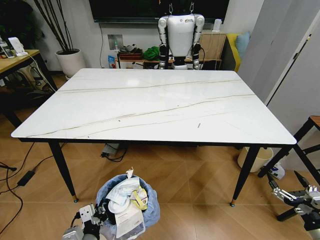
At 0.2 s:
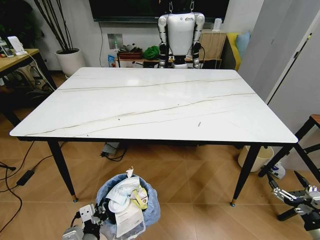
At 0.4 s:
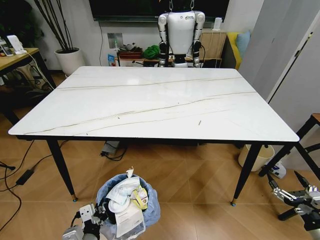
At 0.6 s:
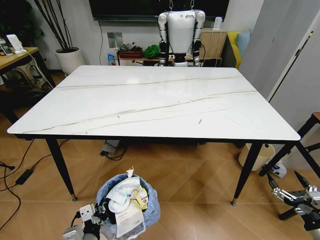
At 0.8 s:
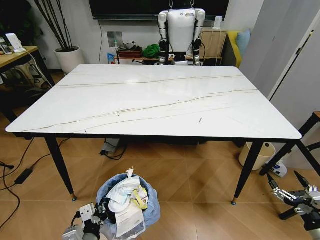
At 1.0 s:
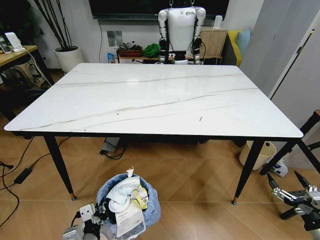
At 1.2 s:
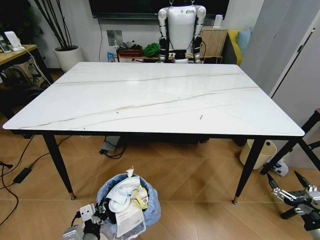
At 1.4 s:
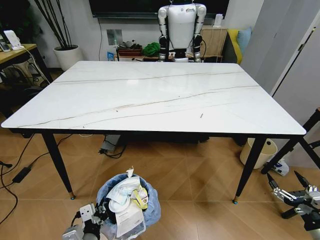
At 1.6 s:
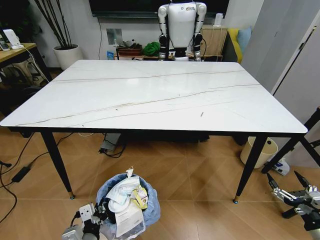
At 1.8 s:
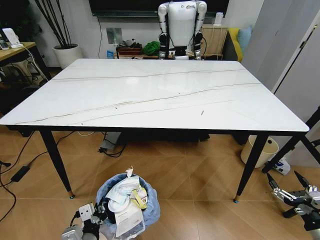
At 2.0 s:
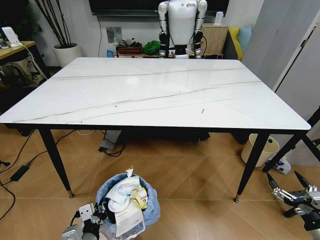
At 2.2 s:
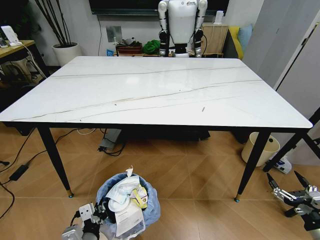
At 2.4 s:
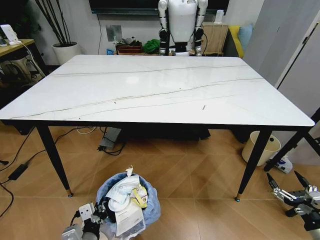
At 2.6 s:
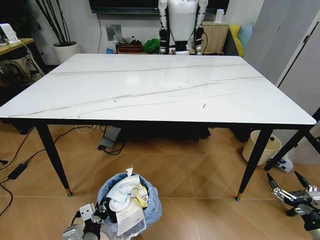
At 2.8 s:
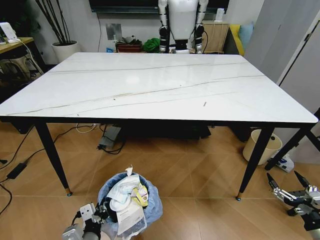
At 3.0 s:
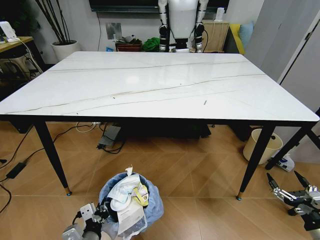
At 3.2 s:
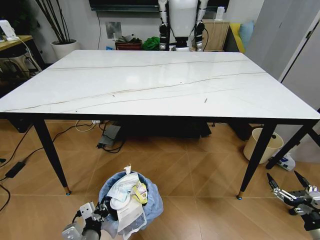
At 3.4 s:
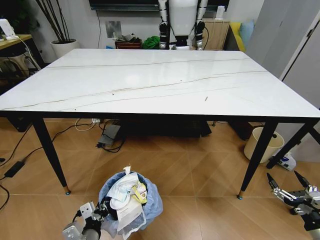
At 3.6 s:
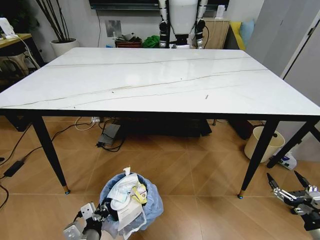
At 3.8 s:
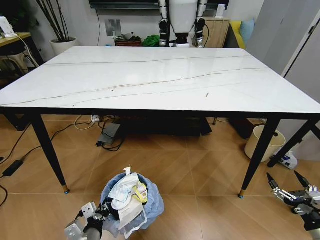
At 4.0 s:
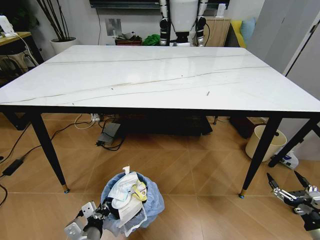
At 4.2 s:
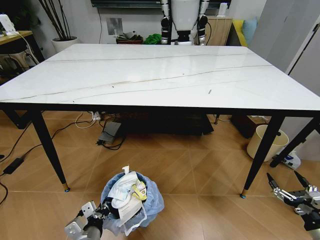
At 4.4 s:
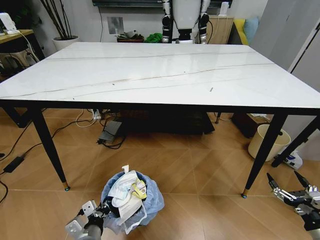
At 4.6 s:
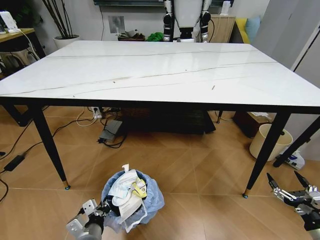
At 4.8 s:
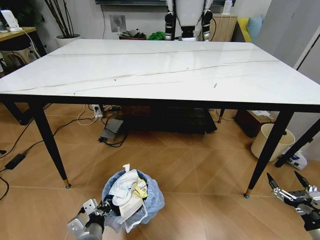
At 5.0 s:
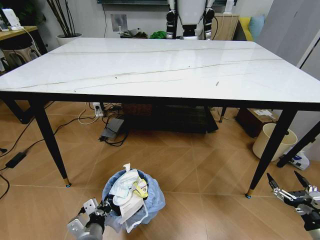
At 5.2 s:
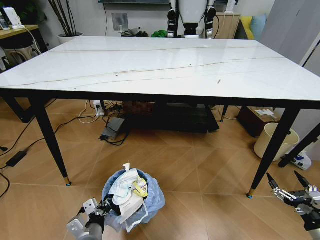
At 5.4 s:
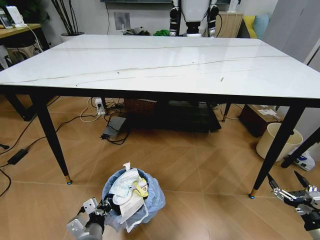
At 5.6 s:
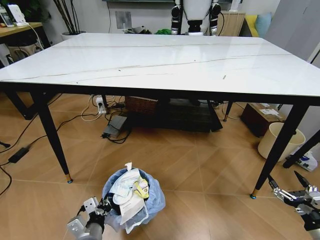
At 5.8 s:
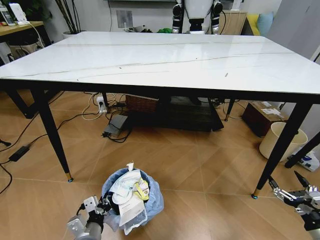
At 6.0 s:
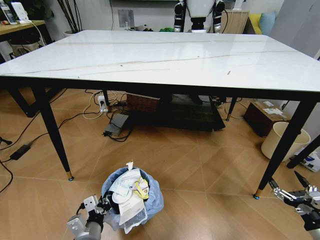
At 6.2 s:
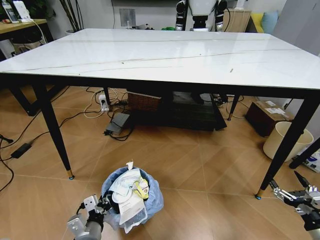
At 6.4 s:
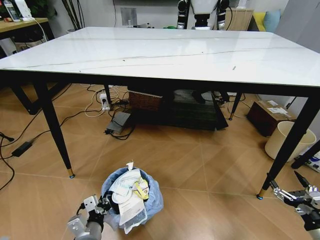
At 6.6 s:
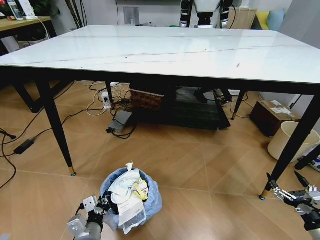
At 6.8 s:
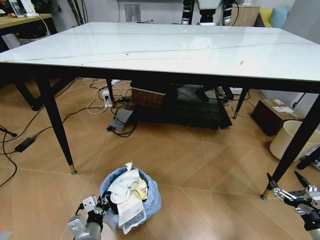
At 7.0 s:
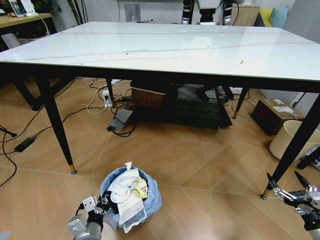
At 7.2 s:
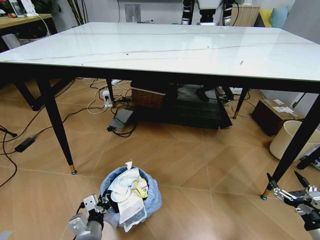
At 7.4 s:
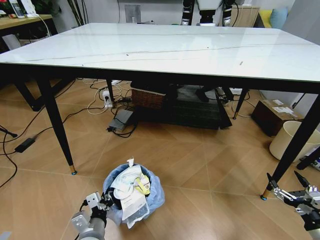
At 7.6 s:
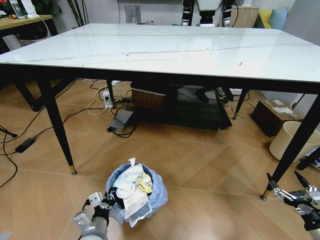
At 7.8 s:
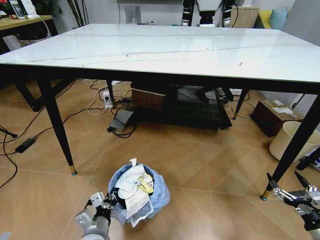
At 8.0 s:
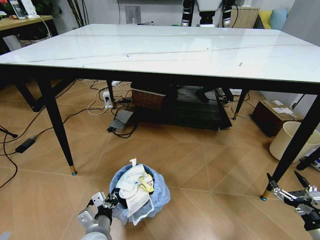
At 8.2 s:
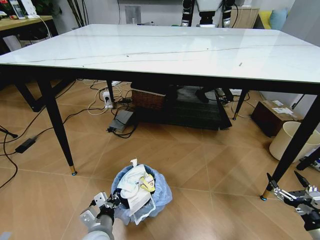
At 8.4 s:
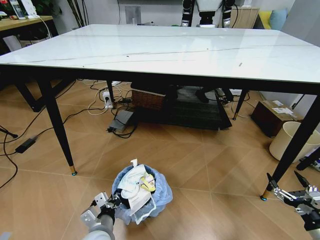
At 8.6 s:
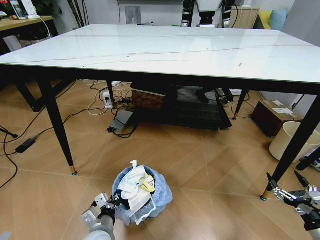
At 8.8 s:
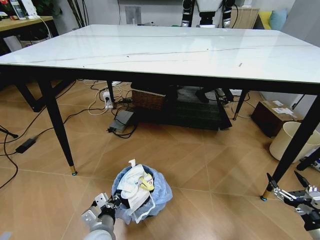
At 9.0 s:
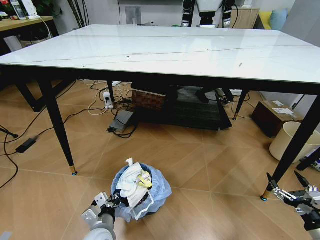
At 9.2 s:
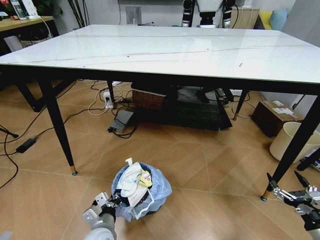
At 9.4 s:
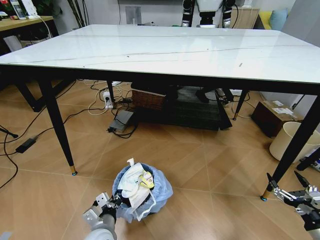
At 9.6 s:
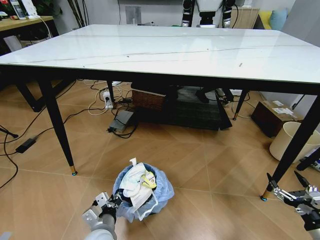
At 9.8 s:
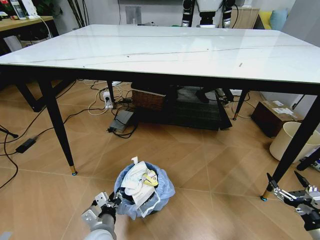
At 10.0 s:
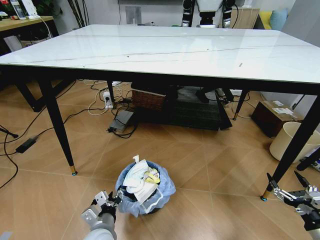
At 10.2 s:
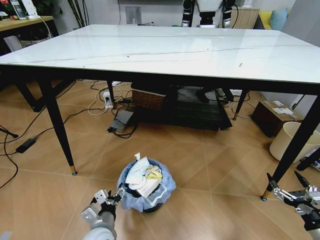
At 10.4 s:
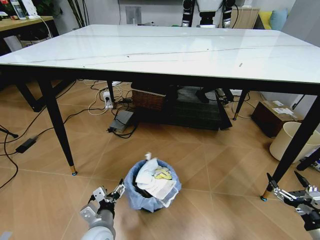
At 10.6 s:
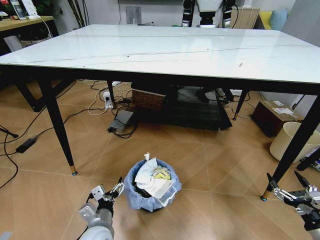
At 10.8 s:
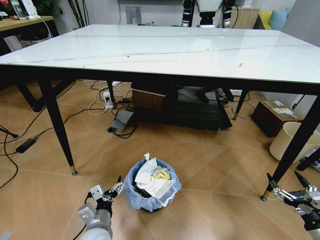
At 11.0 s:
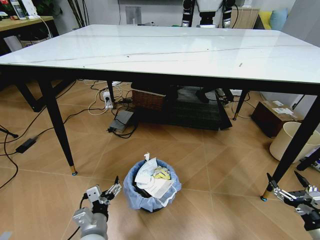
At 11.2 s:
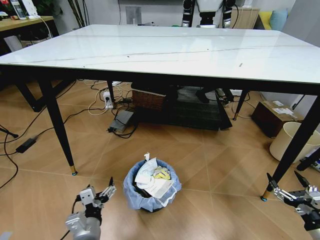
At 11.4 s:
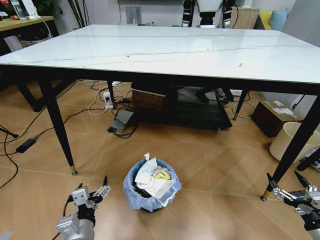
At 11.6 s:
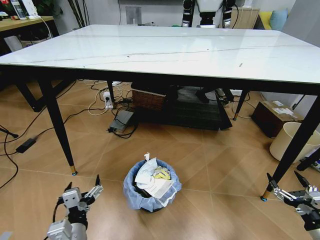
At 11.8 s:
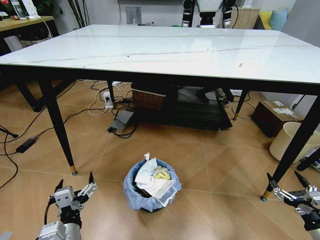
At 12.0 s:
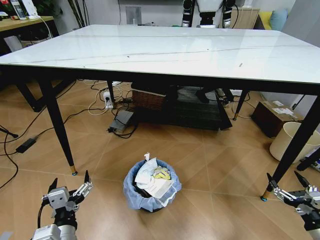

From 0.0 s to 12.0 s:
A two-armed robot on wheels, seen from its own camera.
Task of the whole recording: Pick up the trash bin and place the trash from the table into it.
From 7.6 s to 9.0 s: There are only small adjustments of the grippers.
From 9.0 s to 10.4 s: The left gripper opens up.
From 10.4 s to 12.0 s: The left gripper heads upward and backward, covering approximately 10 cm.
